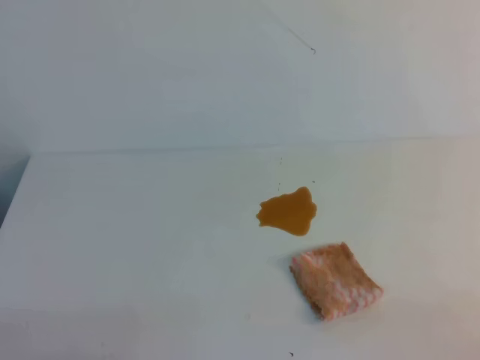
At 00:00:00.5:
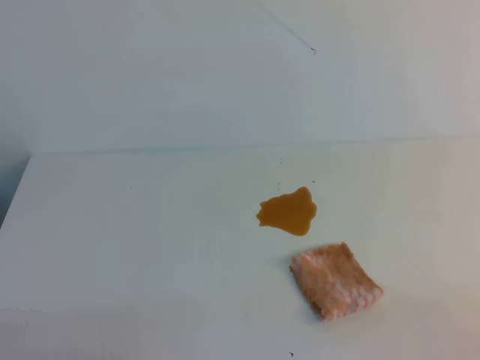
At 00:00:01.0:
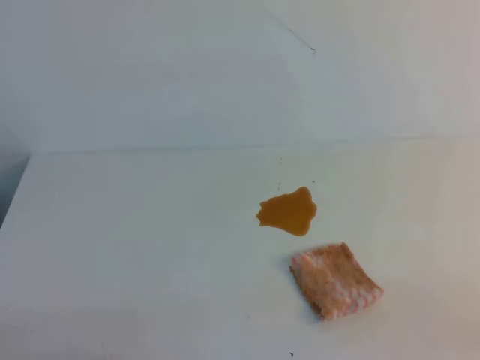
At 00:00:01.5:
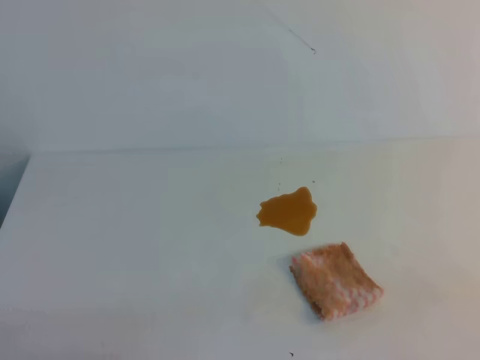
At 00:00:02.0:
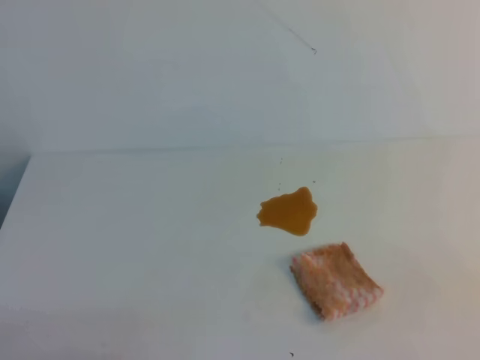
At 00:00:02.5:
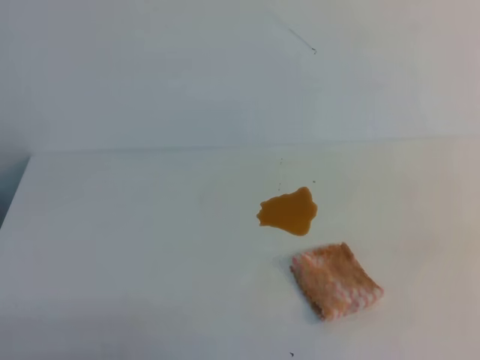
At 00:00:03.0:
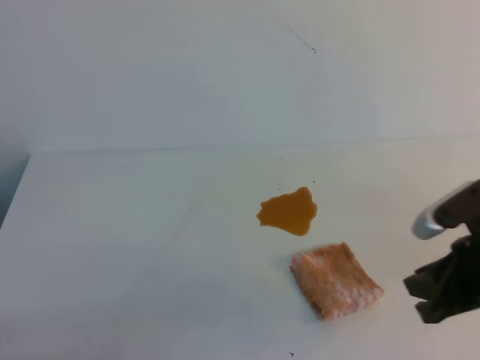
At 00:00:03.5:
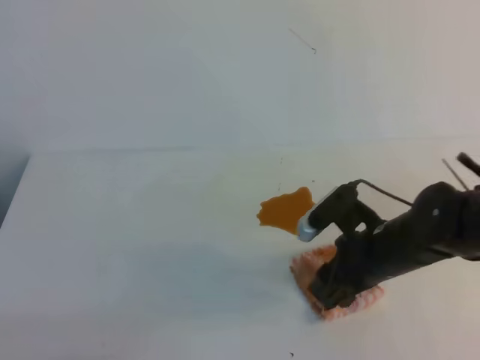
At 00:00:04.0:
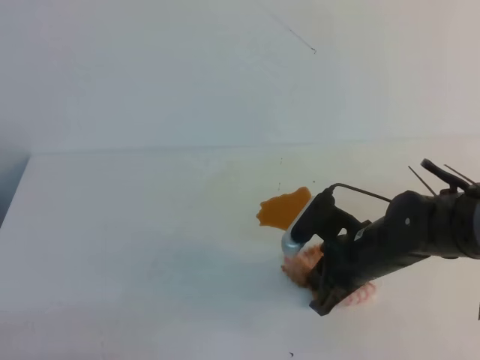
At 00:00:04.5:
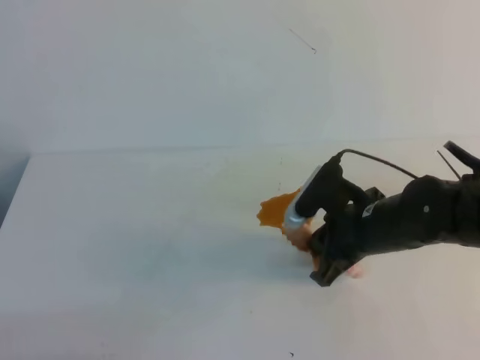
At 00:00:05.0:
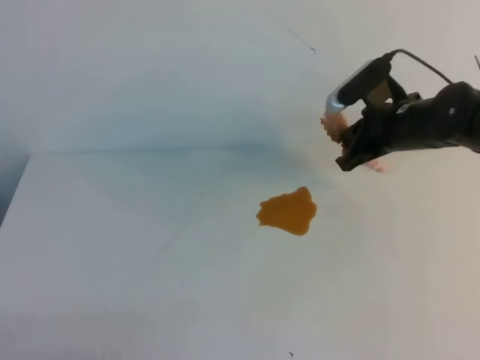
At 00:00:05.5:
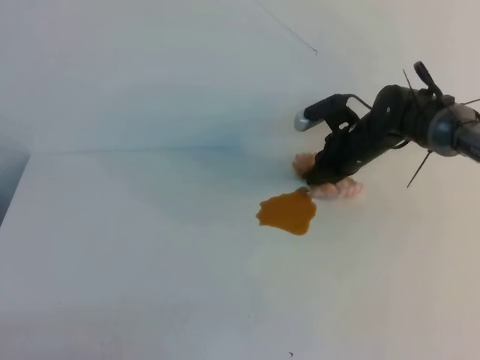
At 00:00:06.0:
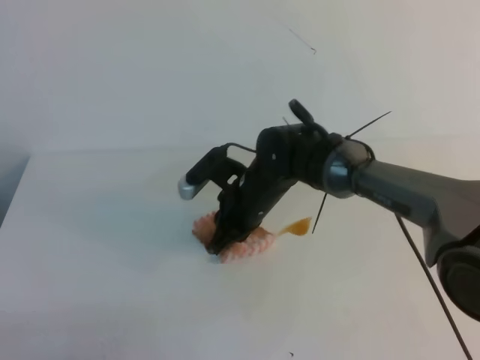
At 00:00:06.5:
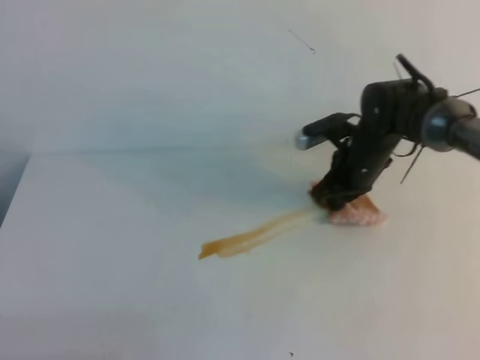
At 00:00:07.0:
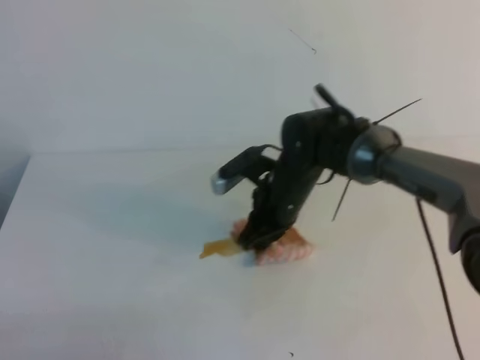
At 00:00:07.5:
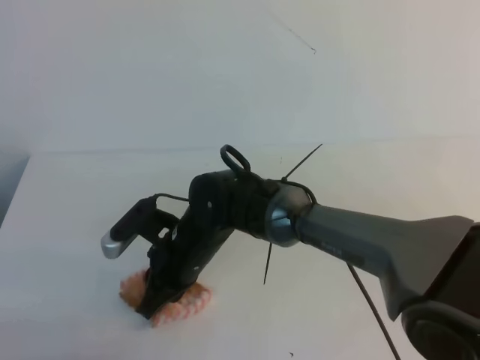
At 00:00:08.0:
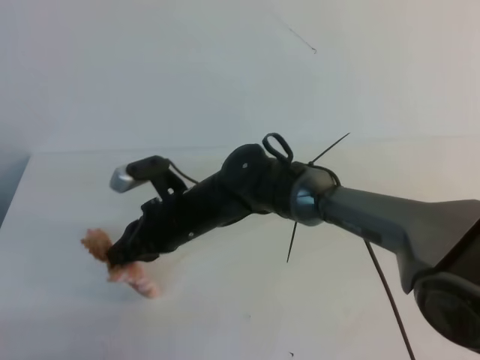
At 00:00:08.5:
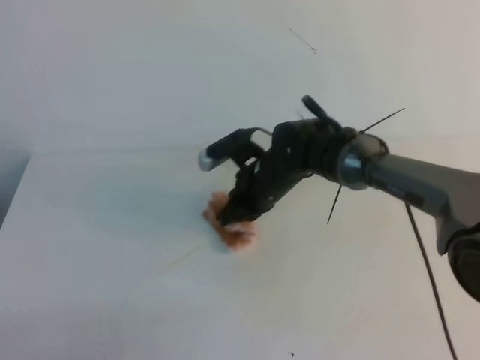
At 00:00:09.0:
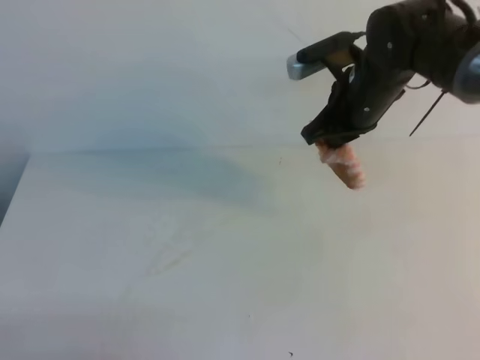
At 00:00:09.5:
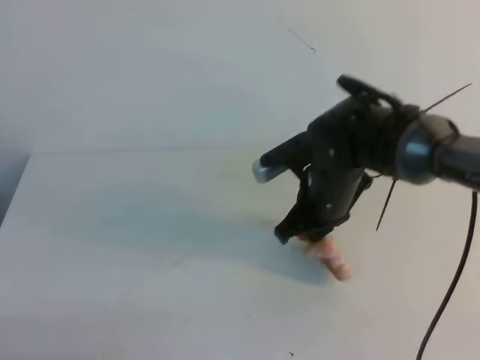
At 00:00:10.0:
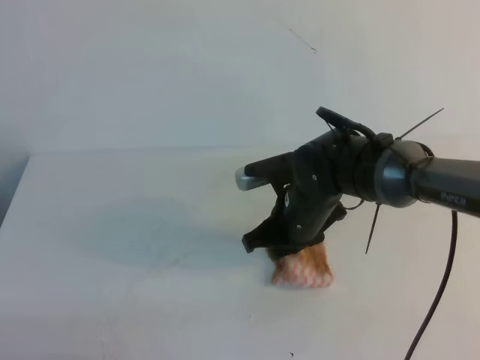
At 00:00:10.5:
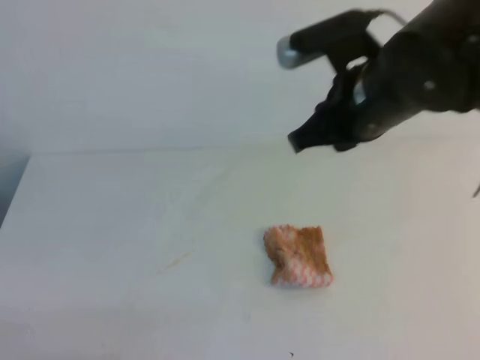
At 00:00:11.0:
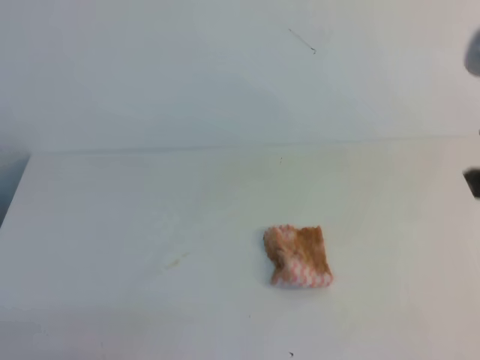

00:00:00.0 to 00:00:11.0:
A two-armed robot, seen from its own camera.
00:00:02.0 to 00:00:03.5: The right gripper travels forward, to the left and downward by some 30 cm, and opens up.
00:00:03.5 to 00:00:05.5: The right gripper travels forward by about 20 cm, and closes its fingers.
00:00:05.5 to 00:00:07.5: The right gripper goes left and right, about 20 cm each way, reversing 2 times.
00:00:07.5 to 00:00:09.0: The right gripper goes roughly 25 cm to the right, upward and forward.
00:00:09.0 to 00:00:11.0: The right gripper is displaced backward and upward by some 30 cm, and opens and closes again.
